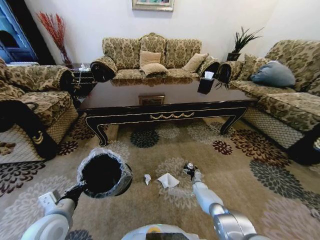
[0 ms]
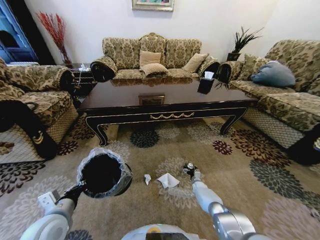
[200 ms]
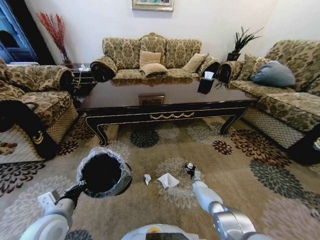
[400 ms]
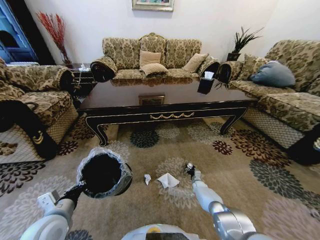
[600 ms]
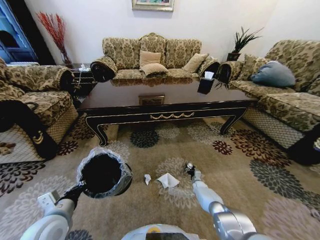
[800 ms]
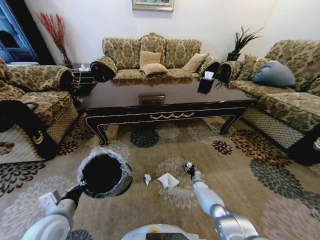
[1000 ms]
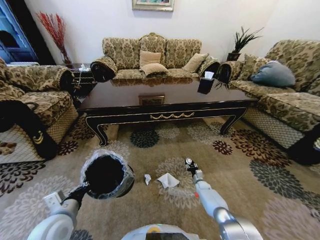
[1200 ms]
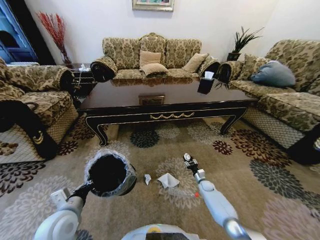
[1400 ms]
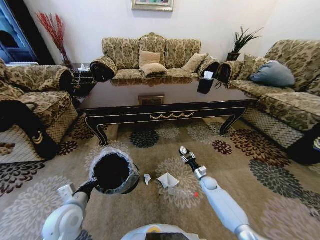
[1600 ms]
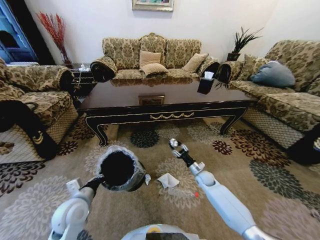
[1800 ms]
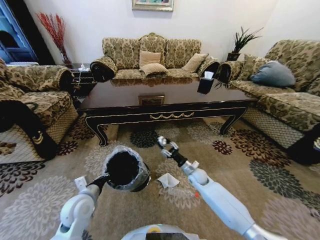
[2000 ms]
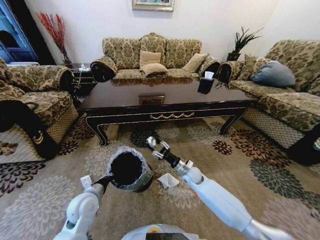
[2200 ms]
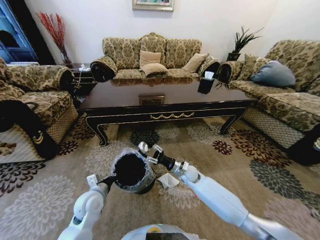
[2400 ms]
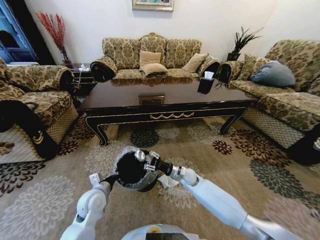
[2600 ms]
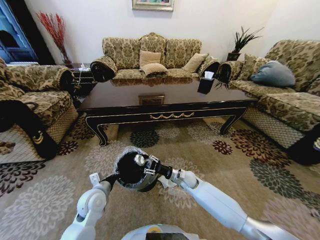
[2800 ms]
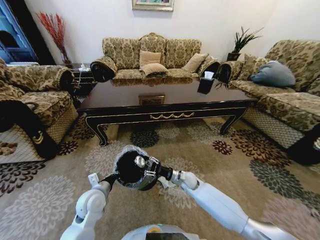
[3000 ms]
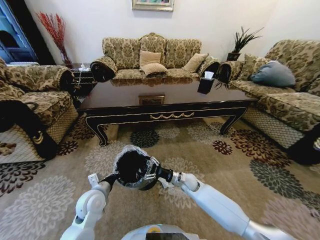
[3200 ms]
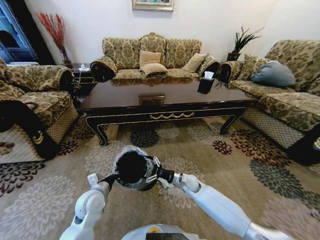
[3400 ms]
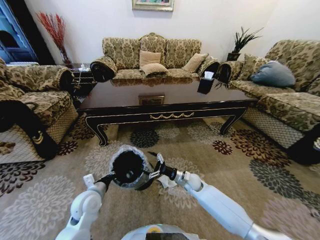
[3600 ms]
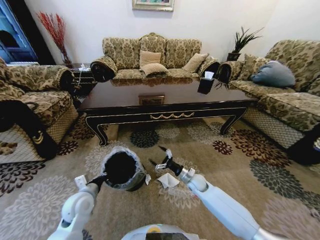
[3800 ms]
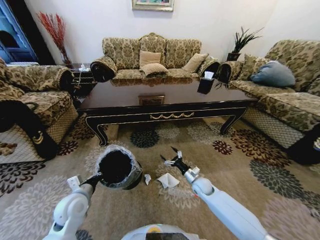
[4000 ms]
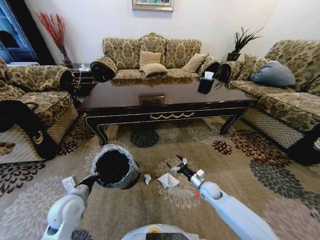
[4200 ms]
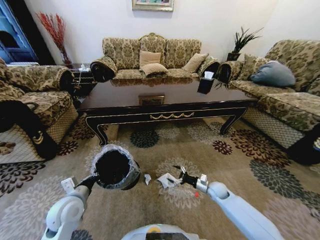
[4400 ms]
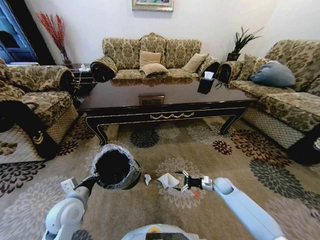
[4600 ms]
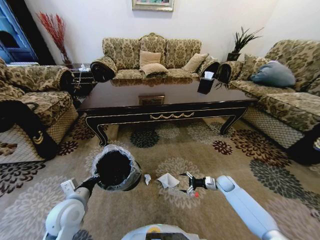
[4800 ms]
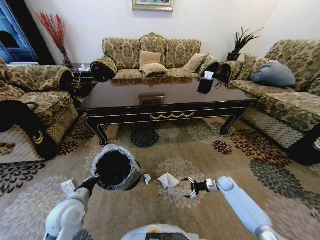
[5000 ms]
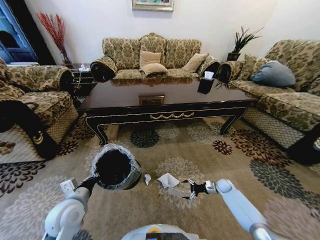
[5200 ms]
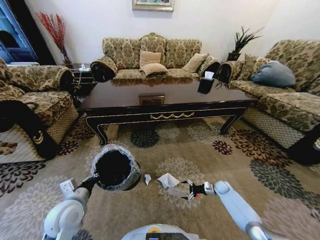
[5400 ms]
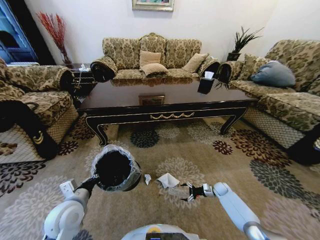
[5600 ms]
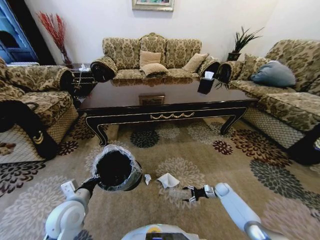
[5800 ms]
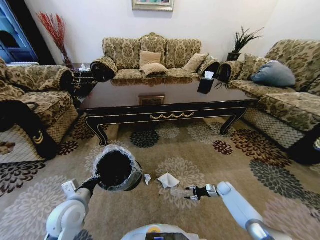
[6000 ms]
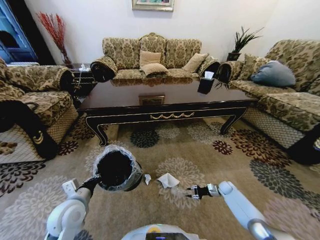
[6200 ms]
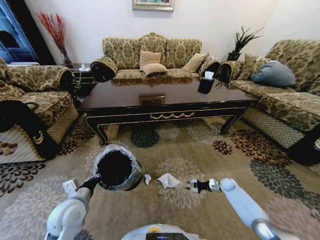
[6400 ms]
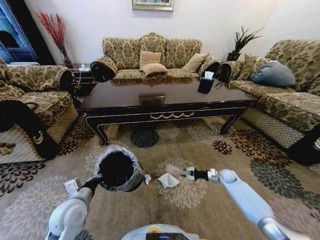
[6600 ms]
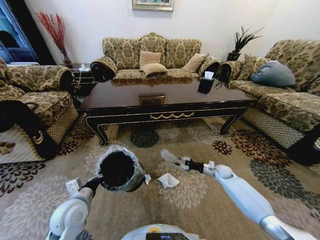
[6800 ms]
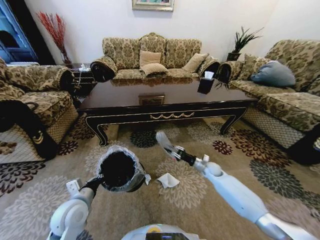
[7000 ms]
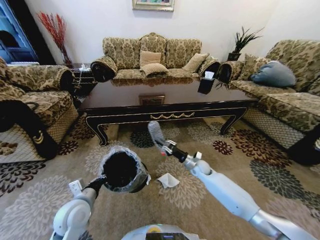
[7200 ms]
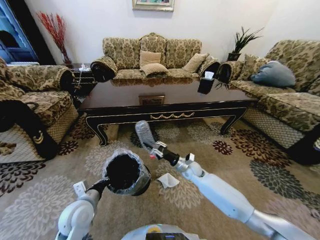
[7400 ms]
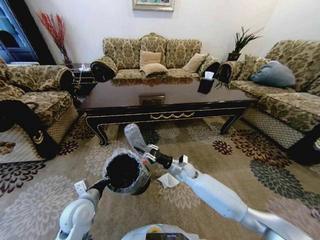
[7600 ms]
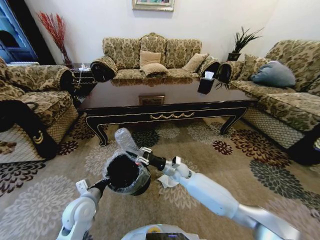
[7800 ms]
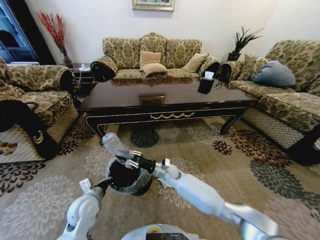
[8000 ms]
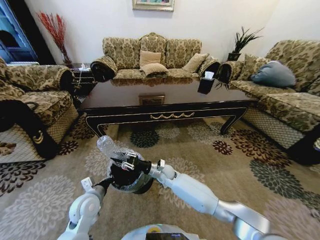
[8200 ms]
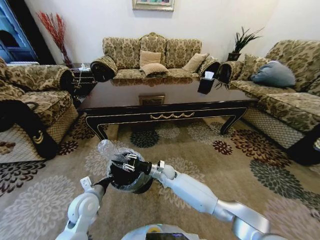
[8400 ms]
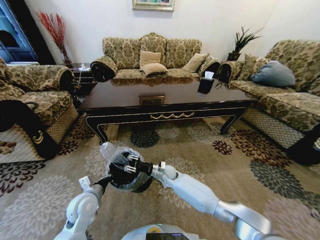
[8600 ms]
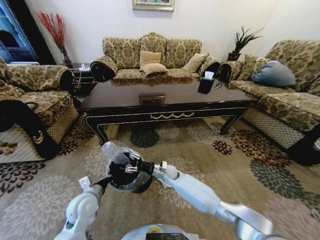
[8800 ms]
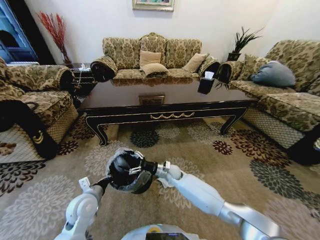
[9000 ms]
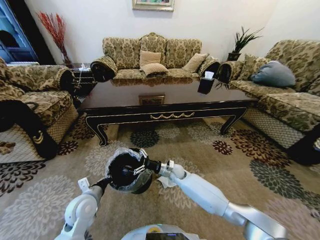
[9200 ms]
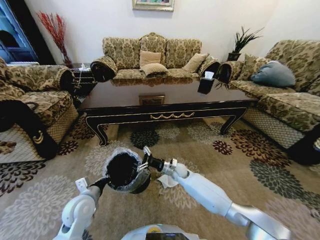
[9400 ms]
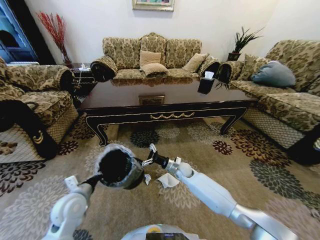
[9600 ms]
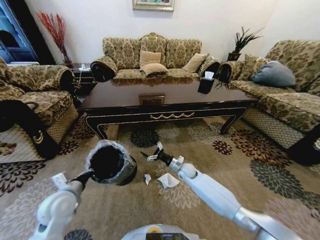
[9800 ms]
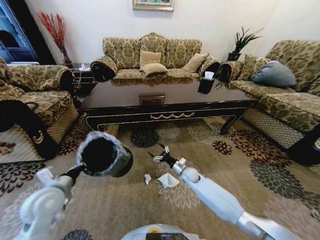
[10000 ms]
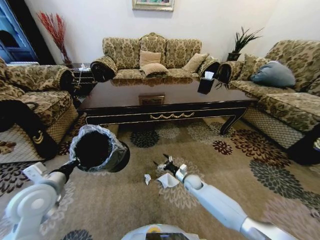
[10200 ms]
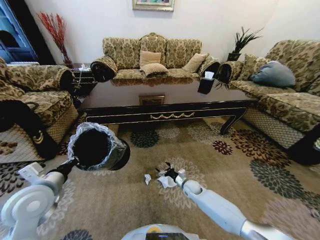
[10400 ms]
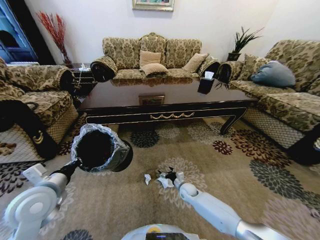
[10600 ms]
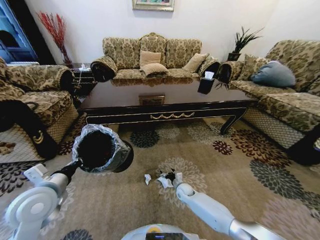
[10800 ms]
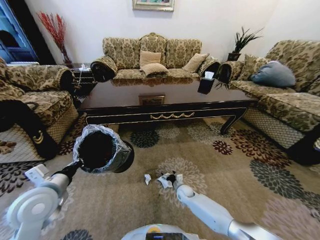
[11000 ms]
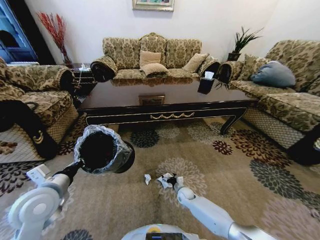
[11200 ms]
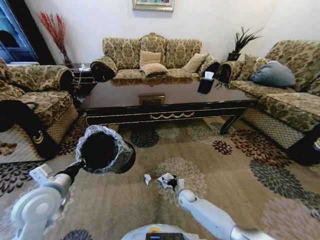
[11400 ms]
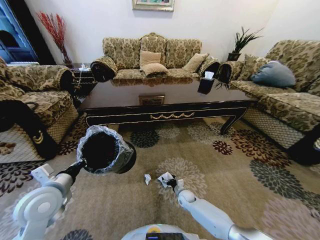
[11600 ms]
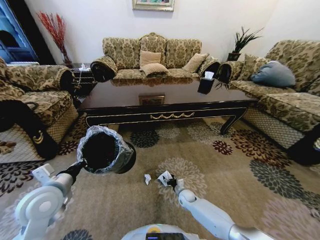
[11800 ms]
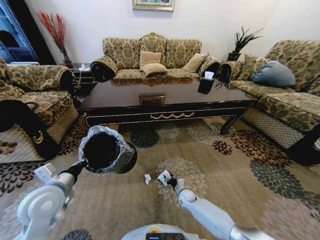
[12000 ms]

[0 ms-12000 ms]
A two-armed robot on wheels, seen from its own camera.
Task of the whole recording: Move to the front of the table and pick up the trash from the floor, then place it into the trash bin.
0 ms to 1600 ms: The right gripper shifts approximately 10 cm upward, and closes up.
1600 ms to 3000 ms: The right gripper moves to the left and upward, roughly 20 cm, while the left gripper moves forward, approximately 5 cm.
3000 ms to 4400 ms: The right gripper is displaced to the right by some 15 cm, and opens up. The left gripper heads to the left, covering approximately 5 cm.
4400 ms to 6000 ms: The right gripper is displaced to the right and downward by roughly 15 cm, and closes.
6000 ms to 7600 ms: The right gripper shifts some 35 cm to the left and upward.
7600 ms to 9000 ms: The right gripper travels to the left and downward by about 10 cm, and opens its fingers.
9000 ms to 10400 ms: The left gripper heads upward and to the left, covering roughly 15 cm. The right gripper is displaced to the right and downward by some 15 cm.
10400 ms to 12000 ms: The right gripper moves downward, roughly 5 cm, and closes.

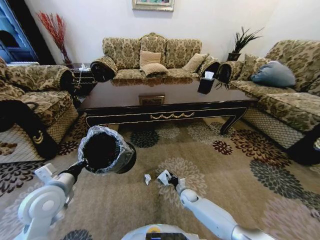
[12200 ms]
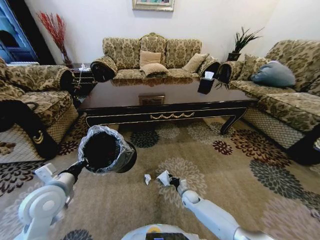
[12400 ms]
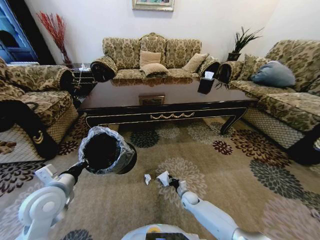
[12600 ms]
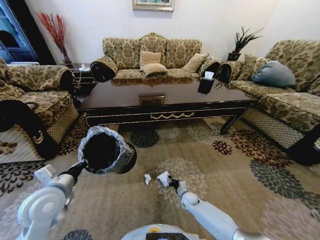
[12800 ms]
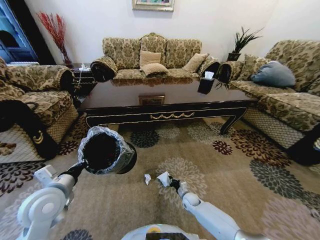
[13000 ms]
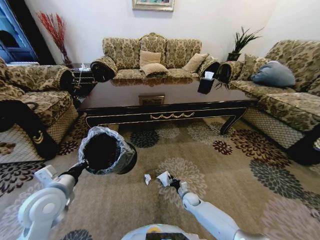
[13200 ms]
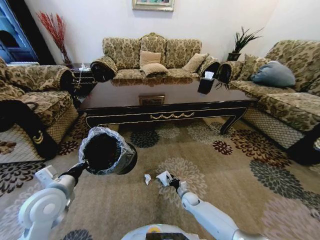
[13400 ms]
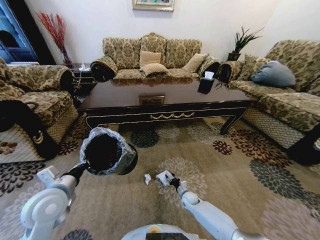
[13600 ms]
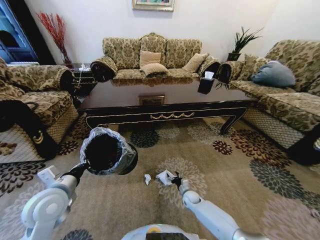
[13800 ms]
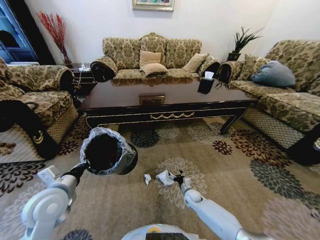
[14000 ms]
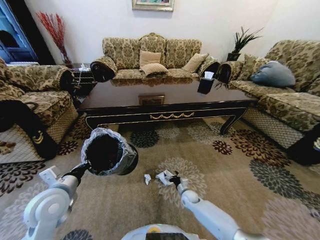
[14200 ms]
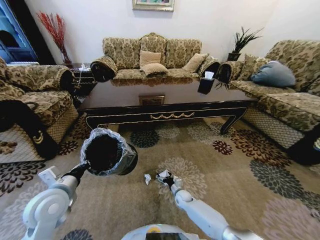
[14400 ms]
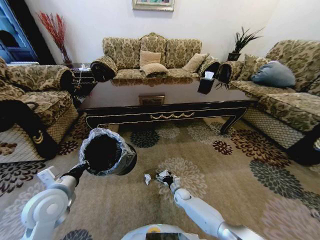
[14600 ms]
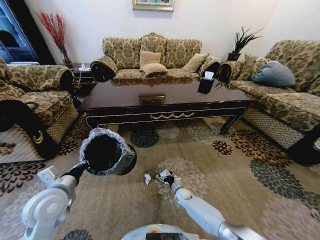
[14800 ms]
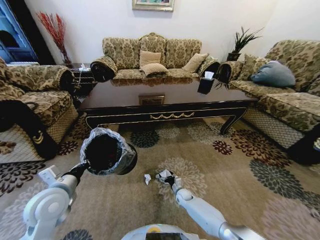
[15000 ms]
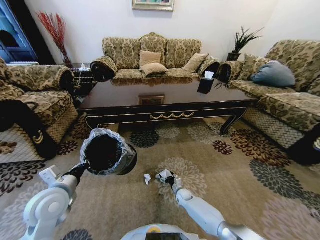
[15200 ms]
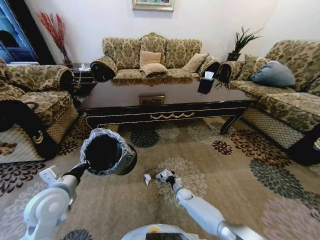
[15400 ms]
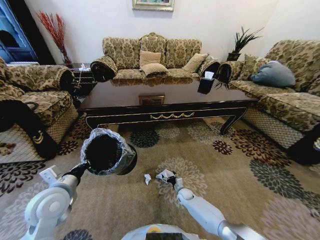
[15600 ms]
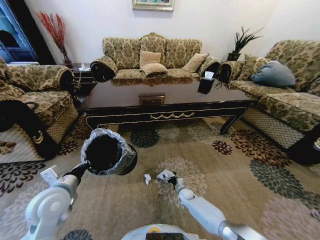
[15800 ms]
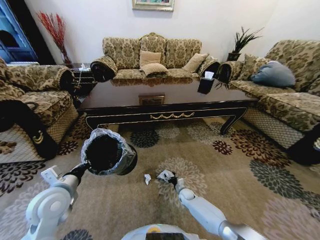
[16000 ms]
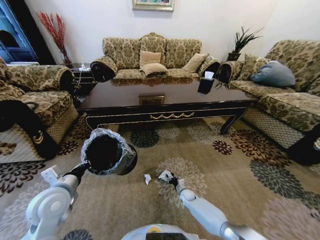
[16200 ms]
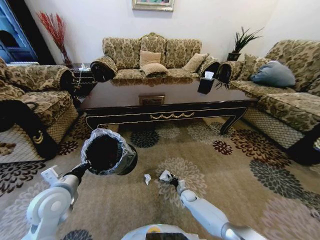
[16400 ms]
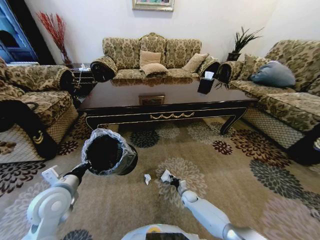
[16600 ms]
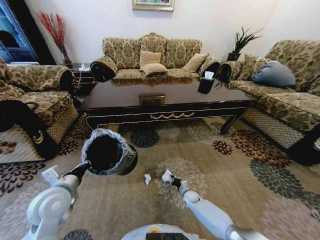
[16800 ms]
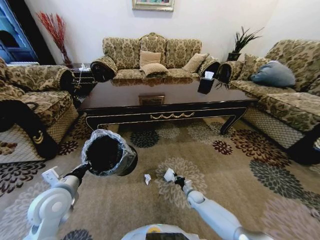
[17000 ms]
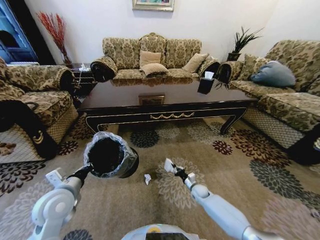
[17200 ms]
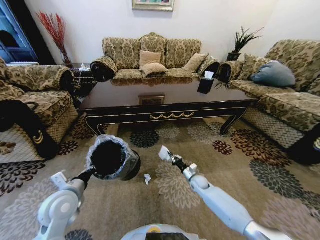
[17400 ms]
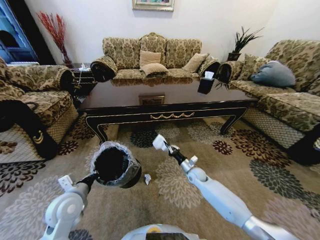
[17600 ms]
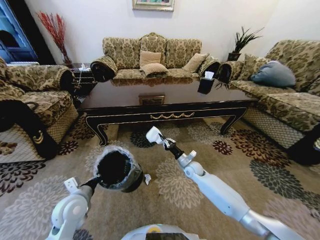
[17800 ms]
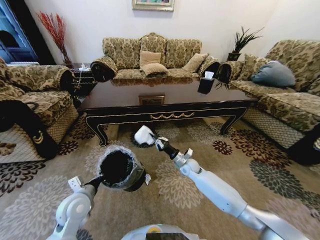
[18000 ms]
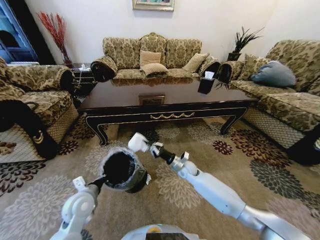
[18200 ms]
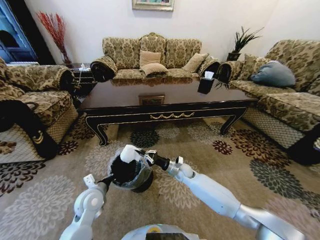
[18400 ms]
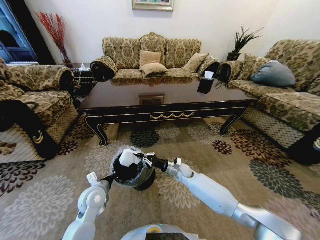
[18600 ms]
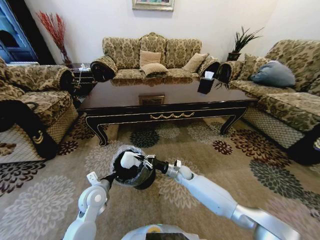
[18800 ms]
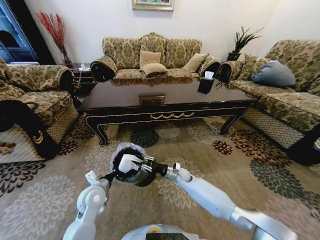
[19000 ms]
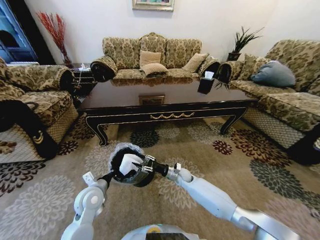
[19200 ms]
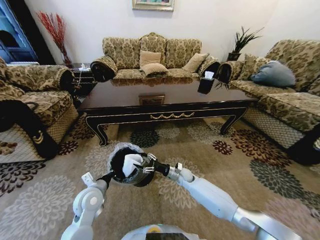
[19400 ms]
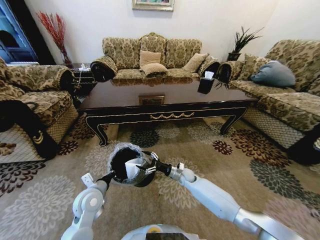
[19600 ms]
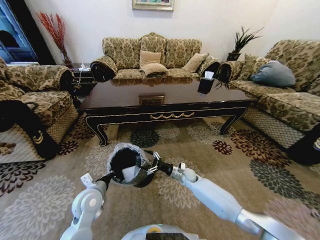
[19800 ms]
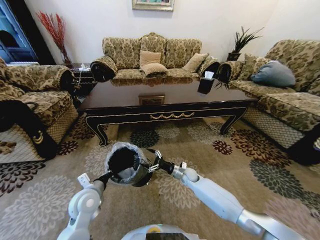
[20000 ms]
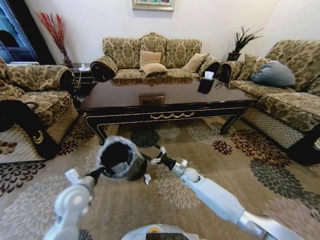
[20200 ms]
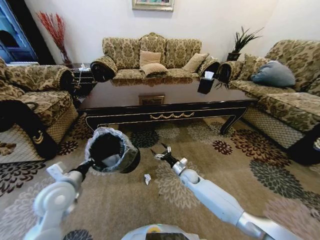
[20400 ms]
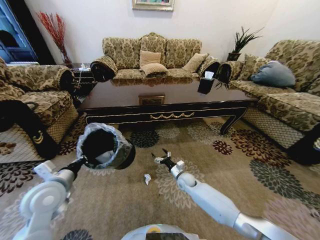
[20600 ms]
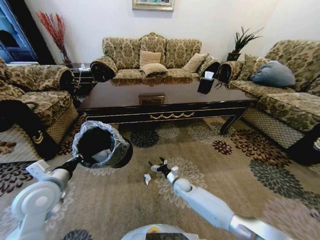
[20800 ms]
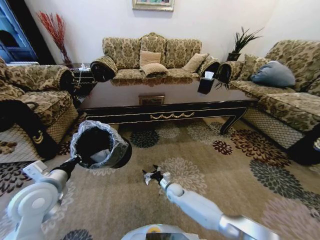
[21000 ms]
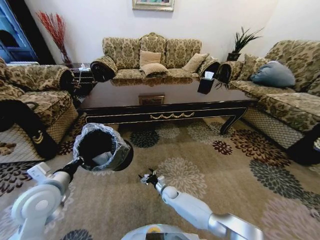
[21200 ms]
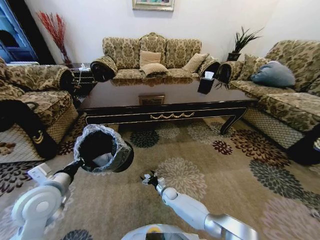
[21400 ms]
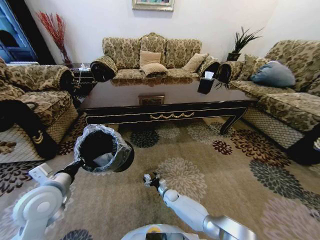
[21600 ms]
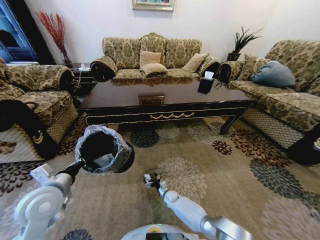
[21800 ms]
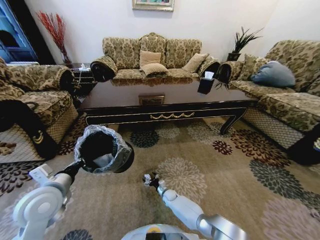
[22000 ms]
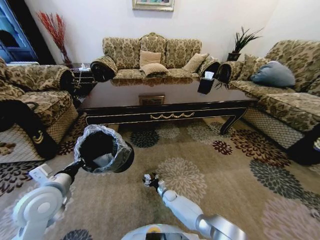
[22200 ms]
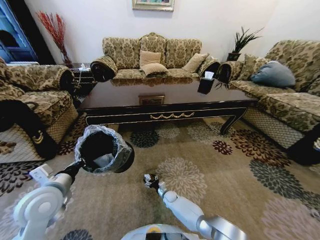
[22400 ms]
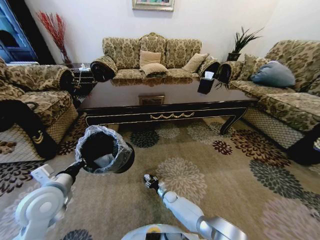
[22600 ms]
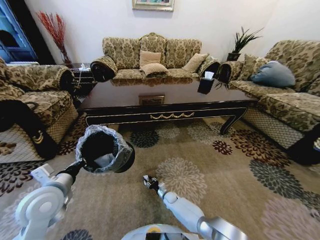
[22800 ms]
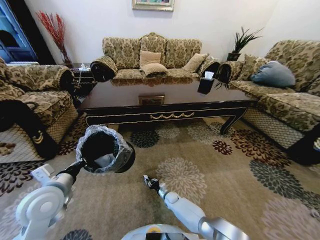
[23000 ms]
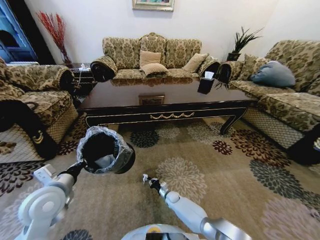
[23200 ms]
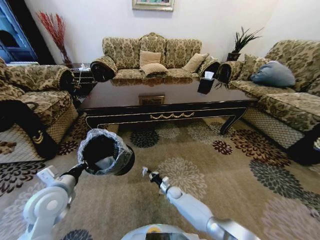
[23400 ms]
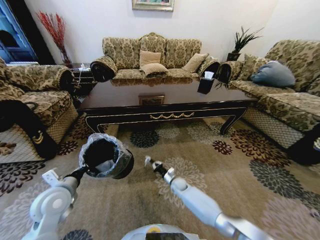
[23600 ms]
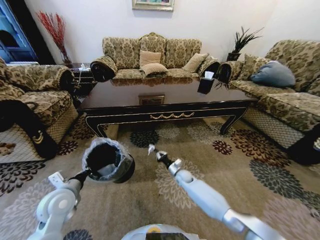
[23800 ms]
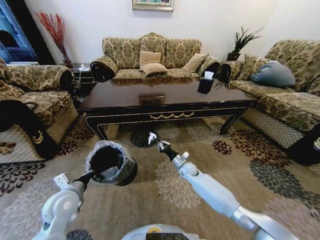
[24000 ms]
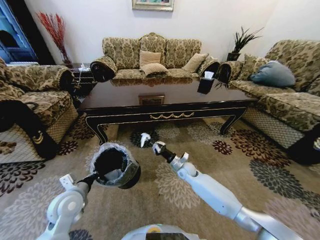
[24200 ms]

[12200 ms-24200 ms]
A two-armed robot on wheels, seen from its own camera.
Task of the whole recording: Move to the front of the table and pick up the trash from the floor, then place it into the trash bin.
12200 ms to 13800 ms: The right gripper opens up.
13800 ms to 15200 ms: The grippers move only a little.
15200 ms to 16600 ms: The right gripper closes up.
16600 ms to 18200 ms: The right gripper moves upward, some 20 cm. The left gripper goes roughly 10 cm downward.
18200 ms to 19800 ms: The right gripper shifts roughly 5 cm downward, and opens up.
19800 ms to 21200 ms: The right gripper is displaced downward, to the left and backward by about 15 cm. Meanwhile the left gripper travels upward and to the left by roughly 15 cm.
21200 ms to 22600 ms: The right gripper moves downward, roughly 5 cm, and closes.
22600 ms to 24200 ms: The right gripper is displaced upward by about 25 cm, and closes. The left gripper moves downward, approximately 10 cm.
